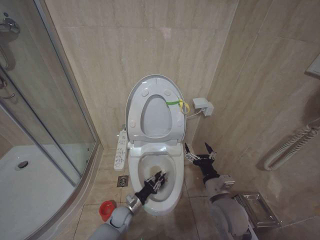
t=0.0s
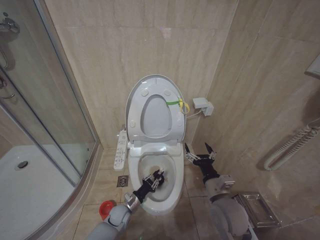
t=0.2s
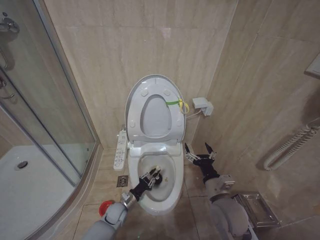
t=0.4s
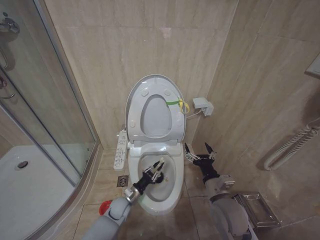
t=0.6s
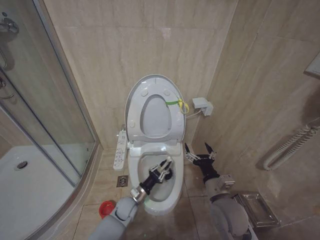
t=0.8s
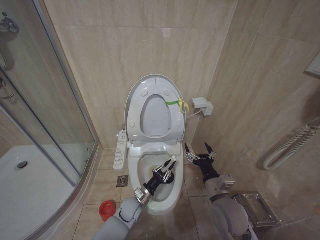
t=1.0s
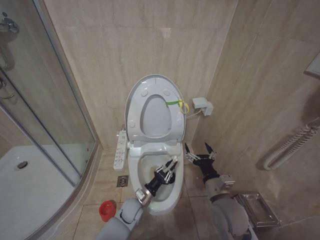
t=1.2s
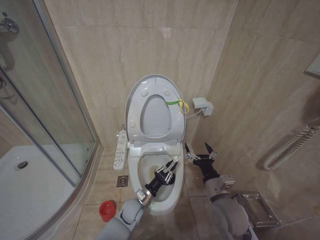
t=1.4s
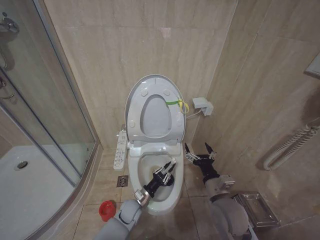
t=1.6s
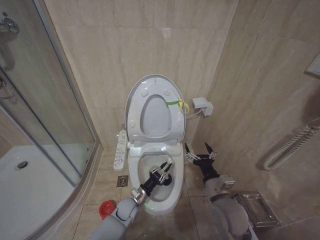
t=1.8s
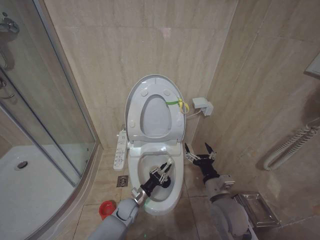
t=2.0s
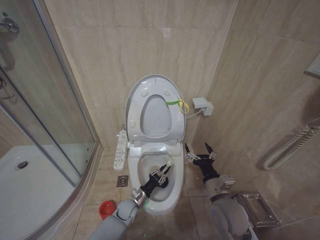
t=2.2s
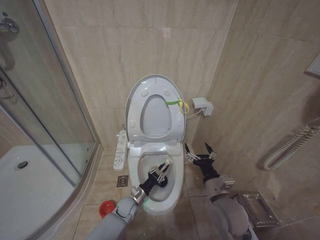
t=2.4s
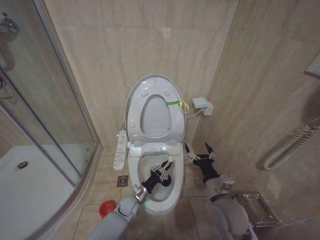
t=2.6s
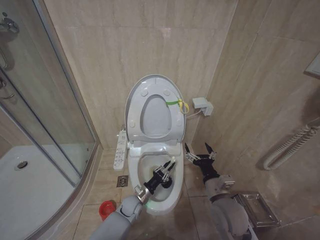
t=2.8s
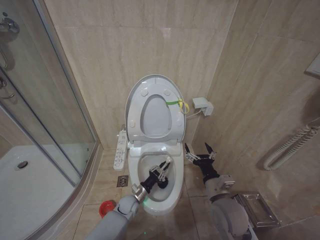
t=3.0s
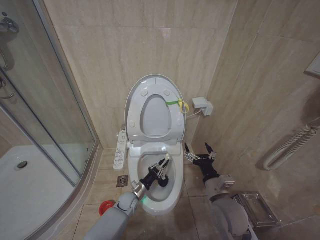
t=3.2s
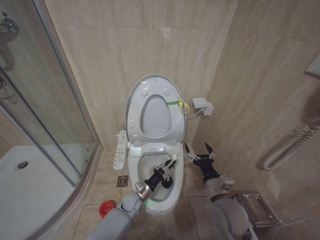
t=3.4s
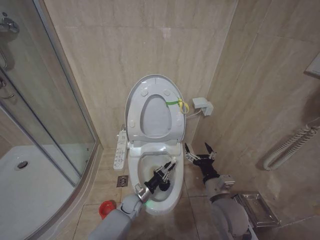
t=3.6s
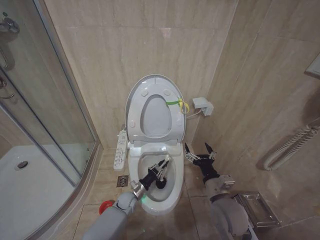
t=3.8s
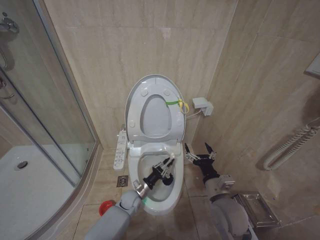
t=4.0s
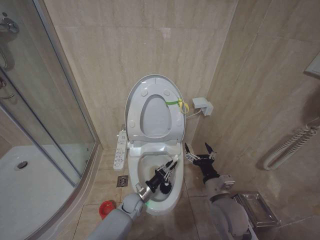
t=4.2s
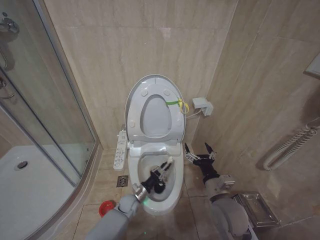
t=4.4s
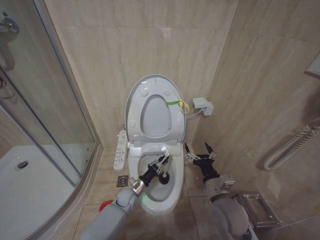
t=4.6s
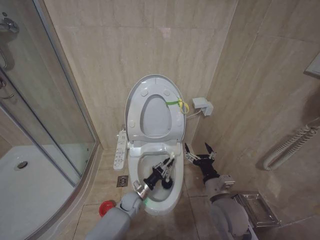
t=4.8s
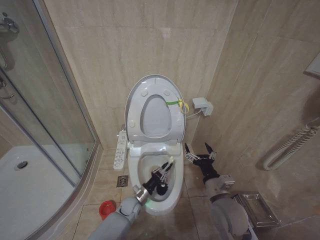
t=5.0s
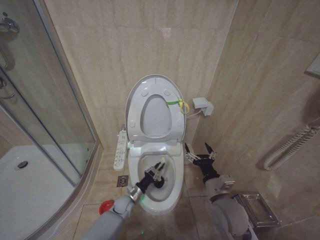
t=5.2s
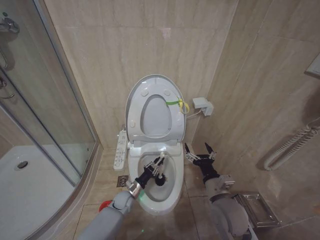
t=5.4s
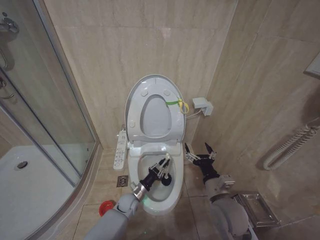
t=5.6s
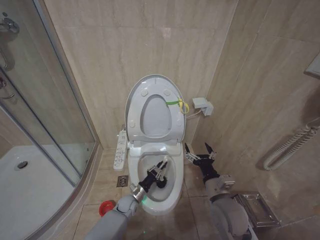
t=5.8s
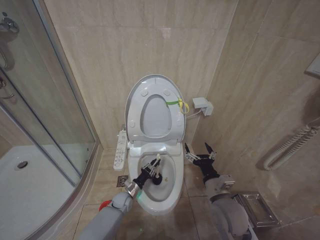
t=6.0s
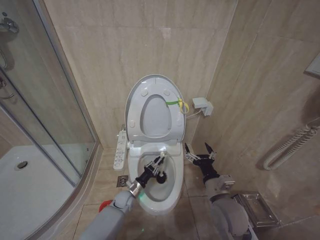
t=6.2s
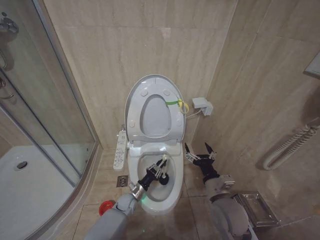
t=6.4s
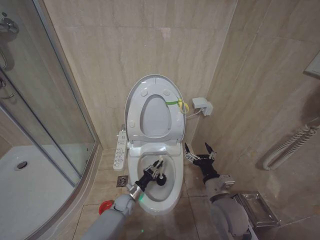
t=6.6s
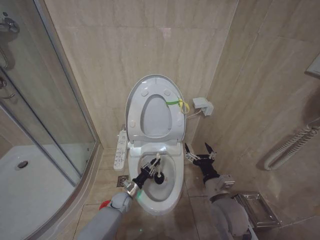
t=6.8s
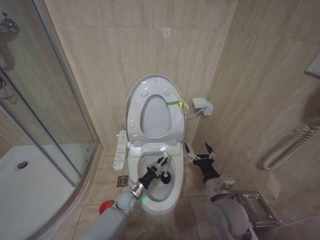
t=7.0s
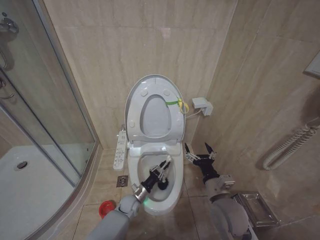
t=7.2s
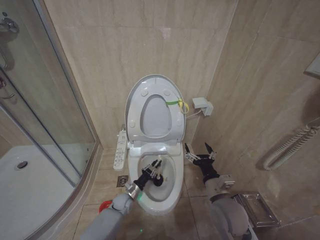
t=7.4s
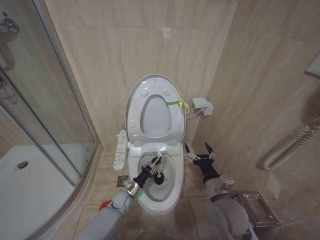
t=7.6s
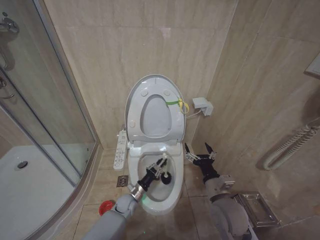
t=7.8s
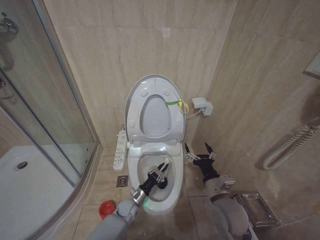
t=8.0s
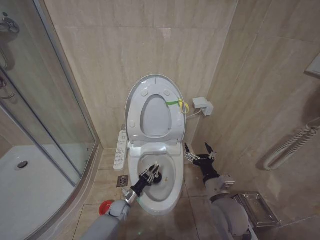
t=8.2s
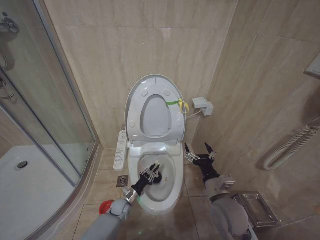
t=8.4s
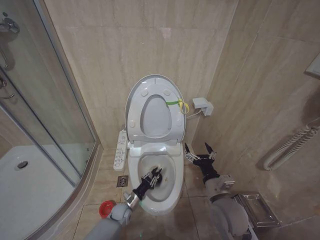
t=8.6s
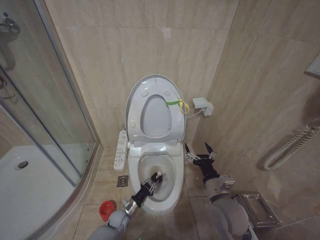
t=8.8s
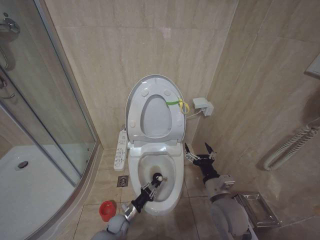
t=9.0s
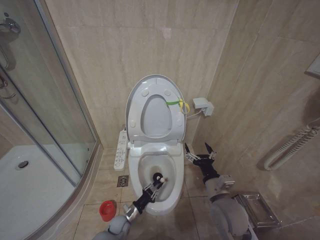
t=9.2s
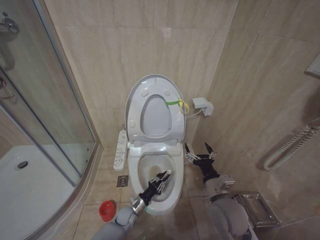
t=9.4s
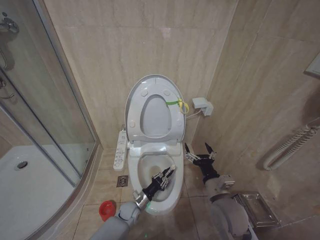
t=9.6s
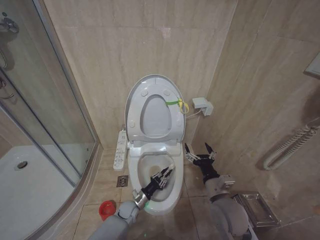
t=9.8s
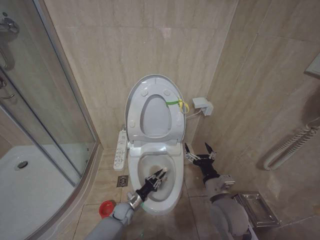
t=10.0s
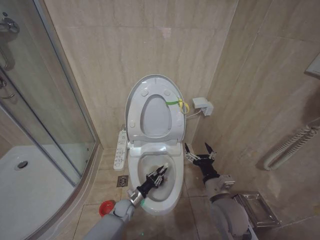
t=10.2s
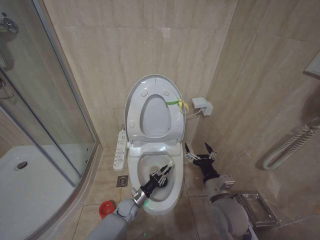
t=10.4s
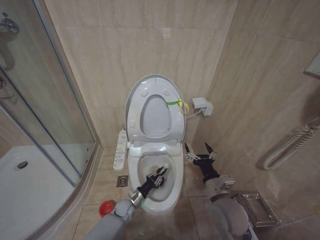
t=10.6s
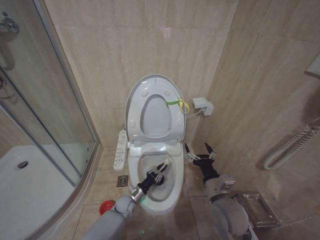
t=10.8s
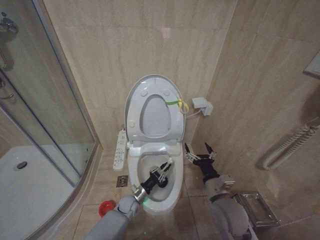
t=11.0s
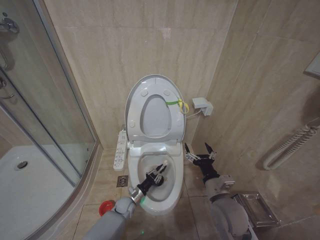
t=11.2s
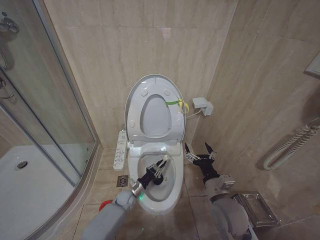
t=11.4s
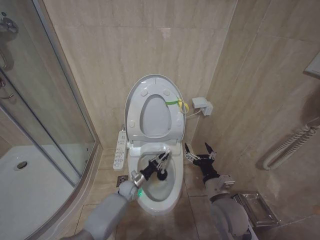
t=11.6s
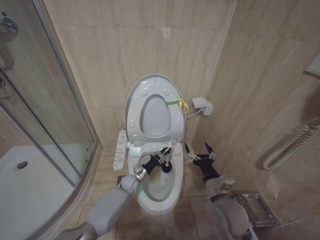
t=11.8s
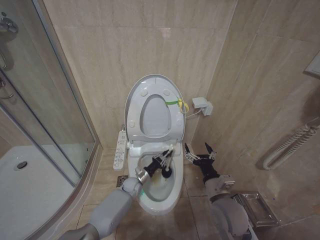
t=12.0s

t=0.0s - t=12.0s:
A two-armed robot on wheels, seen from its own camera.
Task of the whole recording: Open the toilet lid, clean the toilet bowl with a toilet brush, close the toilet lid, and flush.
t=0.0s - t=1.6s: The left gripper travels upward by approximately 5 cm.
t=1.6s - t=3.0s: The left gripper changes place by about 5 cm.
t=4.4s - t=6.0s: The left gripper changes place by some 5 cm.
t=7.6s - t=9.0s: The left gripper goes some 10 cm backward and downward.
t=9.0s - t=10.4s: The left gripper changes place by approximately 10 cm.
t=10.4s - t=12.0s: The left gripper shifts some 10 cm forward.

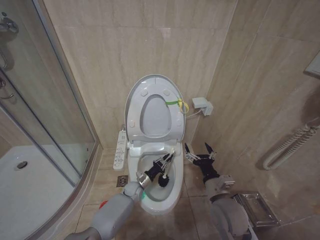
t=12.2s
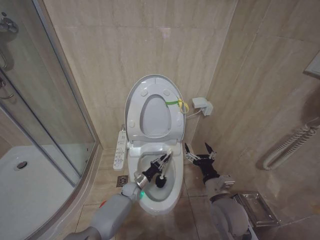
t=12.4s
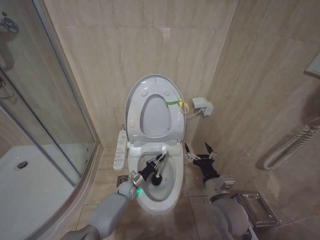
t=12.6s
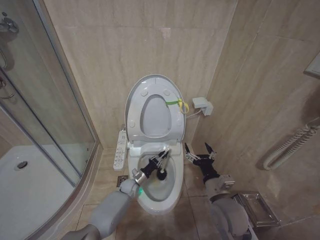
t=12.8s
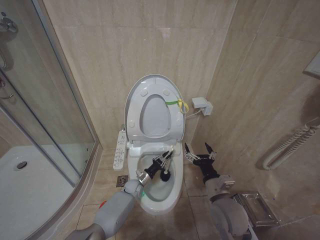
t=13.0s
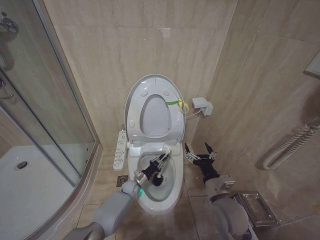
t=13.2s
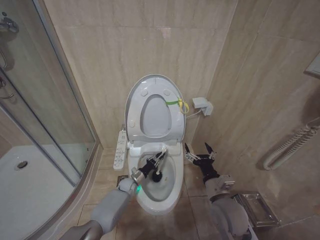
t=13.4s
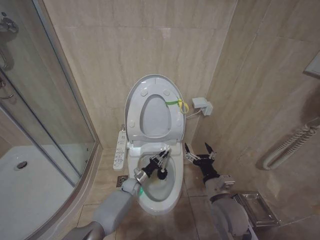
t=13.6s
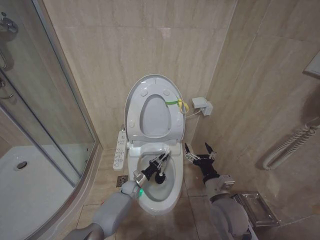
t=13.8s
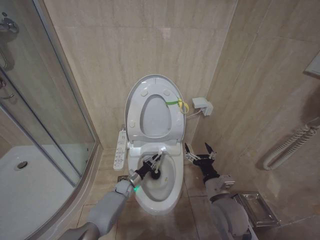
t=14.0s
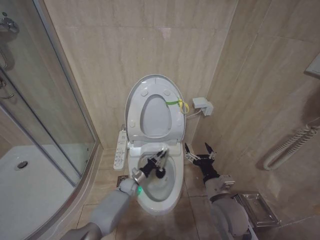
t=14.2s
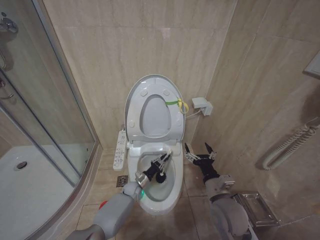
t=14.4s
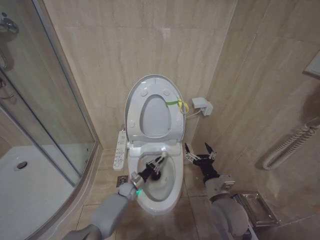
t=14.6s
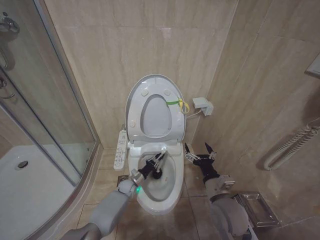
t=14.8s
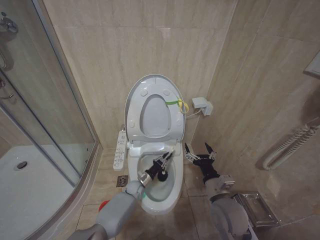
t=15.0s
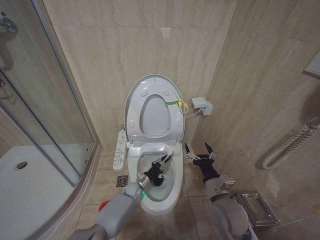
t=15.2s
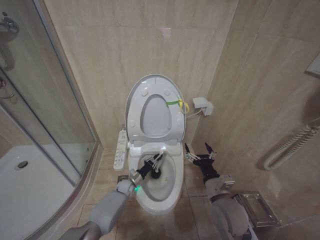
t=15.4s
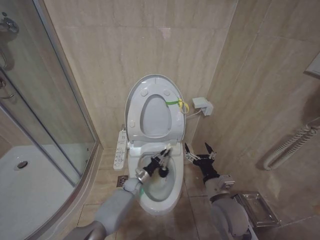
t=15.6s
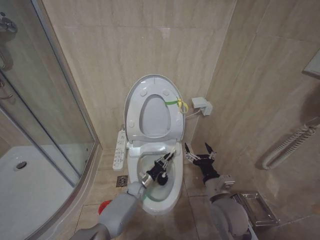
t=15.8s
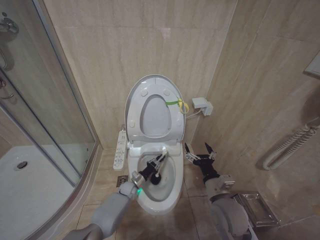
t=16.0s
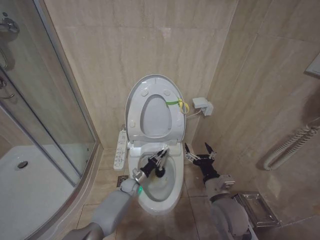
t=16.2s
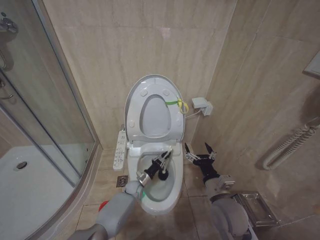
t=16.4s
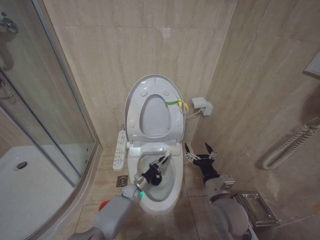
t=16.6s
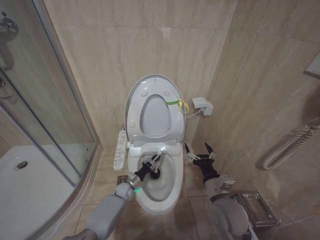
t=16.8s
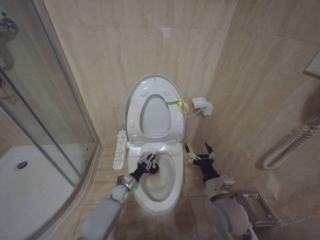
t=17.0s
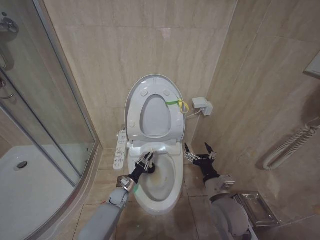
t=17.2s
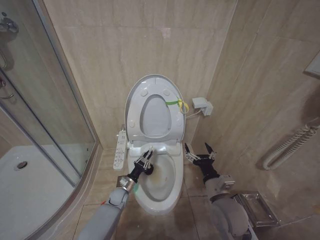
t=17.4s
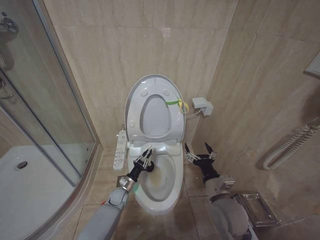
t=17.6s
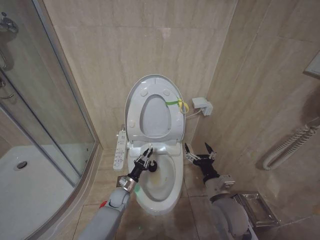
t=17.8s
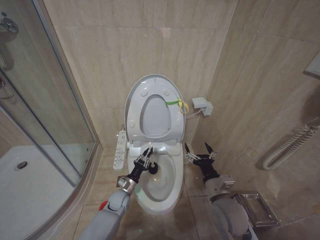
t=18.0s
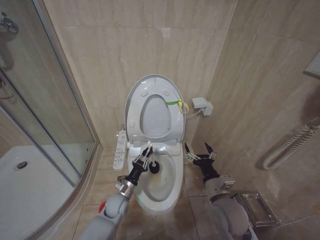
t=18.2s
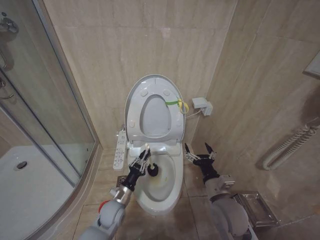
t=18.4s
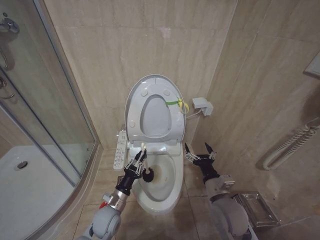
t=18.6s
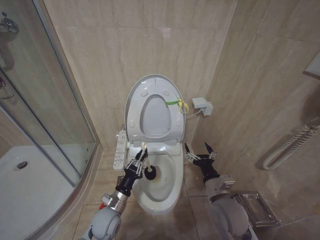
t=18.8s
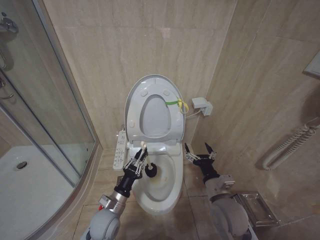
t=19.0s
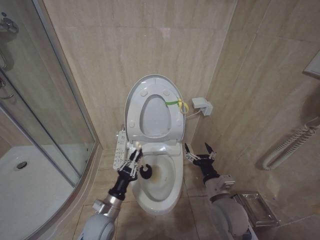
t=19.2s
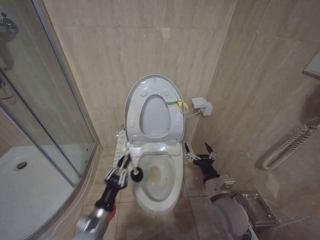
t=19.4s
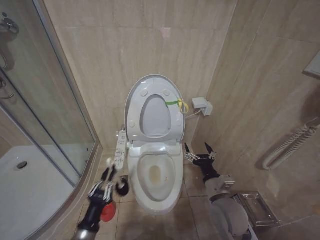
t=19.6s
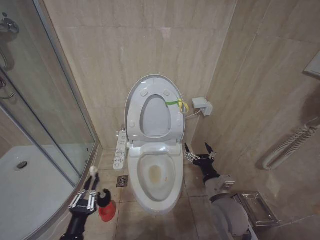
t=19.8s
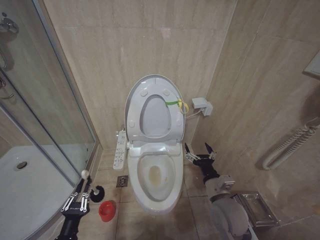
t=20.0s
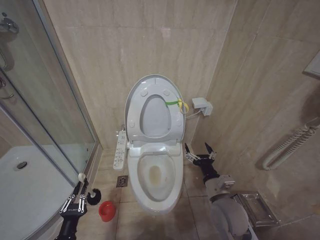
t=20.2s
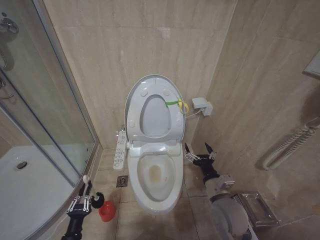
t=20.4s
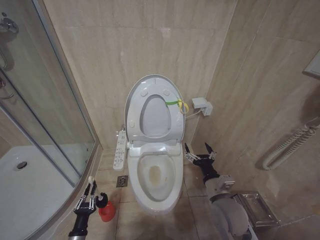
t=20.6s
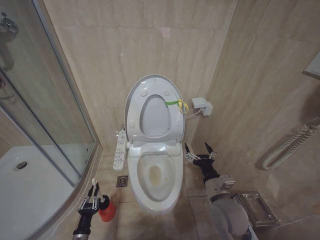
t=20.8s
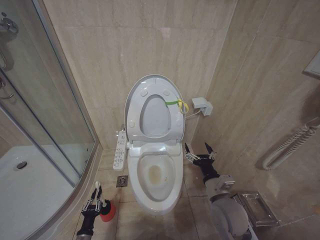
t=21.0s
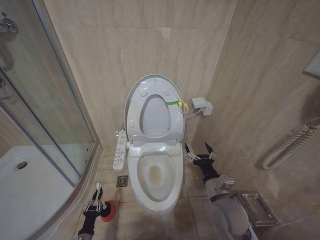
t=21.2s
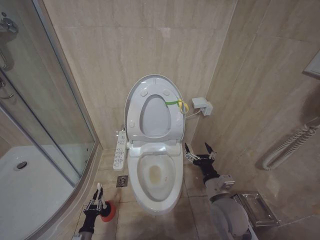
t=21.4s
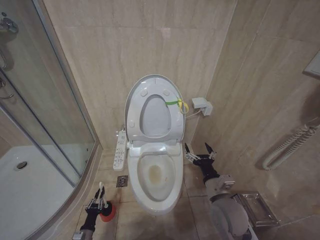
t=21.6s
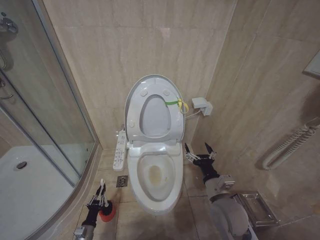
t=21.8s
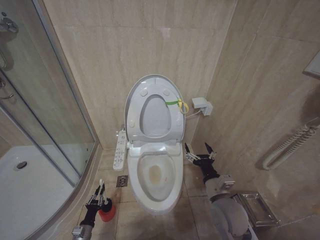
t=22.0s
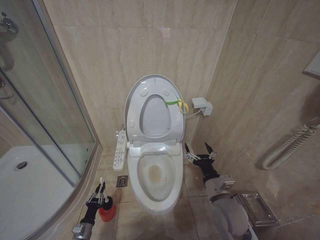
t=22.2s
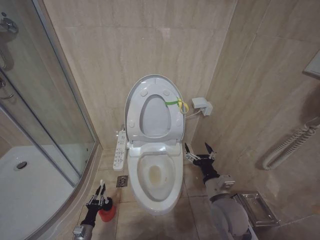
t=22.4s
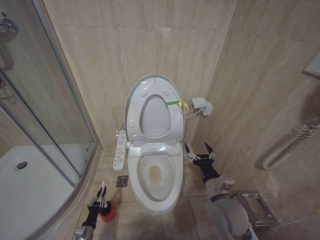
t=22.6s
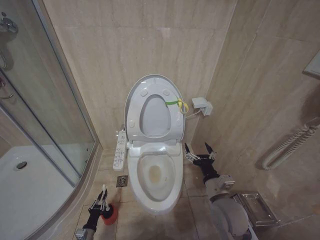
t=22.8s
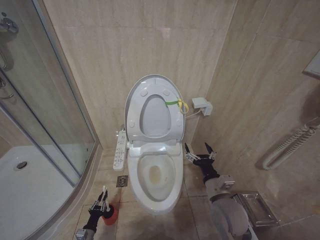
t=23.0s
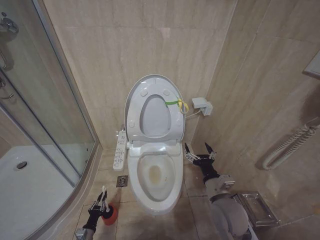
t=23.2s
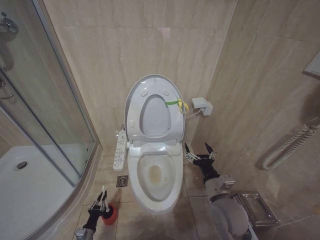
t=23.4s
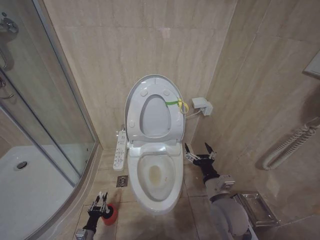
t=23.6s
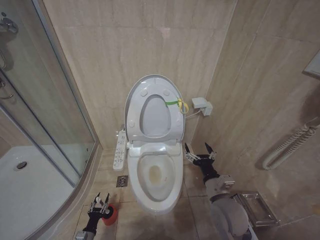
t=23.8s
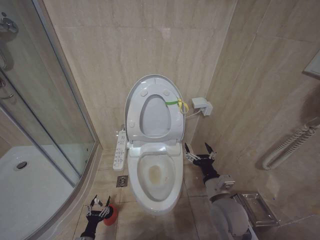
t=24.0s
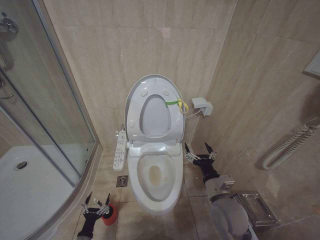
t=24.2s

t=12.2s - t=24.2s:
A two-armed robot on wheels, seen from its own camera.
Task of the whole recording: Open the toilet lid, clean the toilet bowl with a toilet brush, close the toilet lid, and flush.
t=12.2s - t=13.8s: There are only small adjustments of the grippers.
t=13.8s - t=15.2s: The grippers make only small movements.
t=16.6s - t=18.2s: The left gripper is displaced upward, backward and to the left by about 10 cm.
t=18.2s - t=19.8s: The left gripper is displaced backward and to the left by some 25 cm.
t=19.8s - t=21.2s: The left gripper heads downward, covering roughly 20 cm.
t=22.6s - t=24.2s: The left gripper opens.
